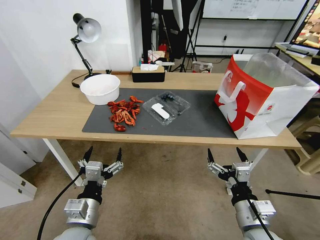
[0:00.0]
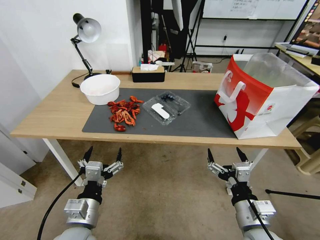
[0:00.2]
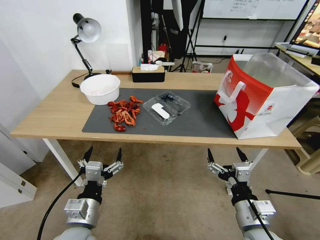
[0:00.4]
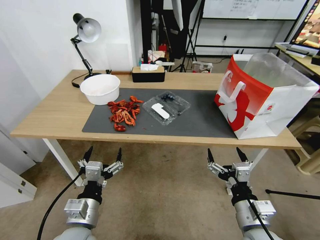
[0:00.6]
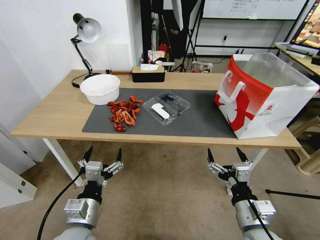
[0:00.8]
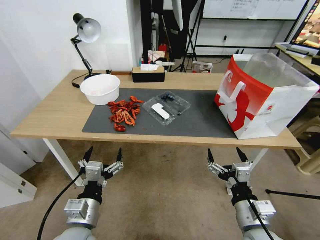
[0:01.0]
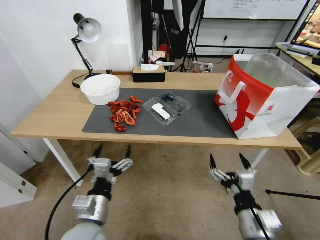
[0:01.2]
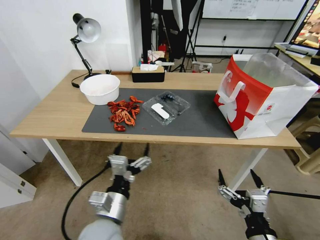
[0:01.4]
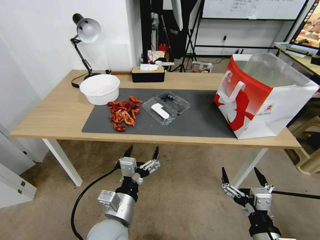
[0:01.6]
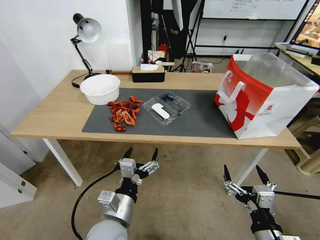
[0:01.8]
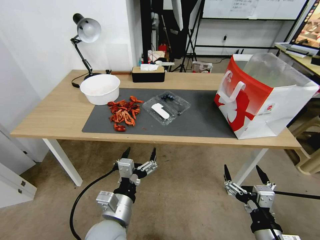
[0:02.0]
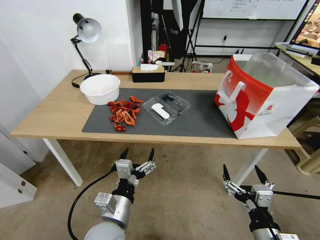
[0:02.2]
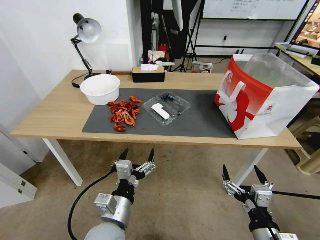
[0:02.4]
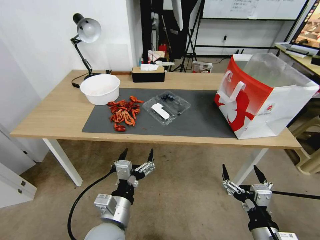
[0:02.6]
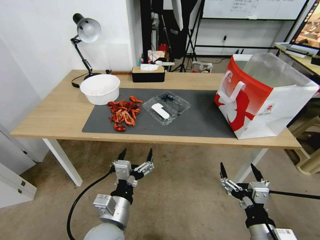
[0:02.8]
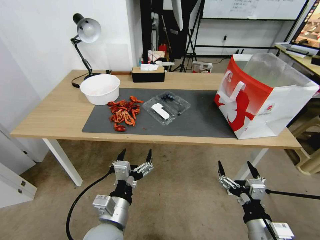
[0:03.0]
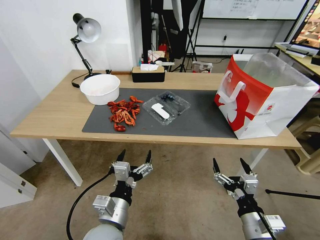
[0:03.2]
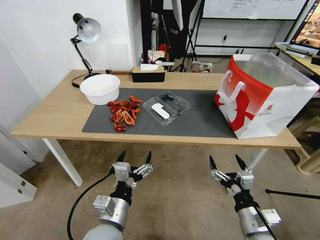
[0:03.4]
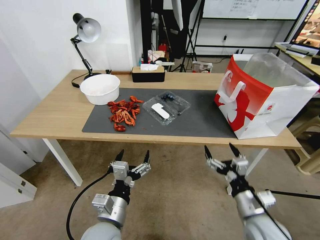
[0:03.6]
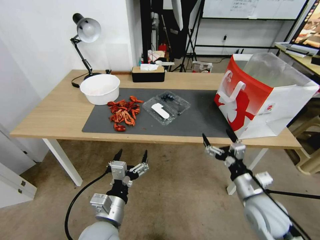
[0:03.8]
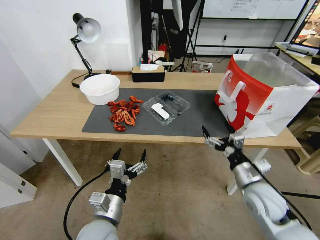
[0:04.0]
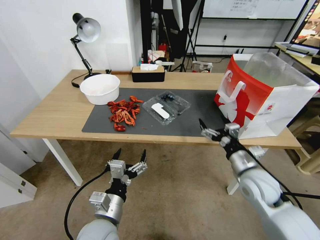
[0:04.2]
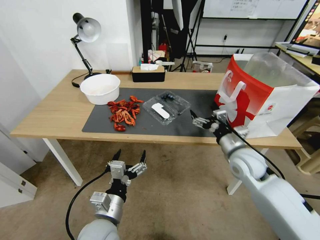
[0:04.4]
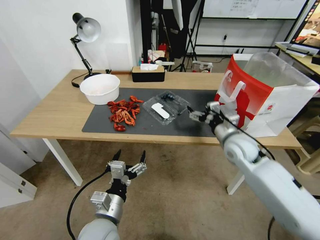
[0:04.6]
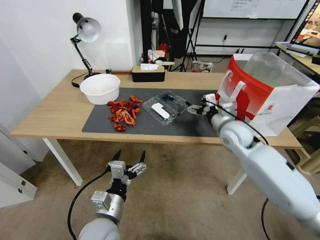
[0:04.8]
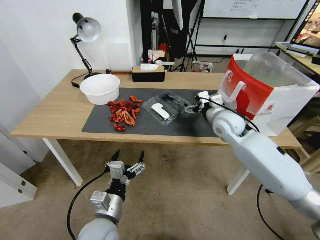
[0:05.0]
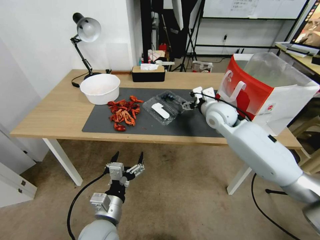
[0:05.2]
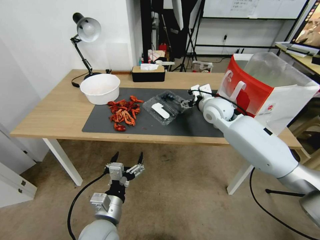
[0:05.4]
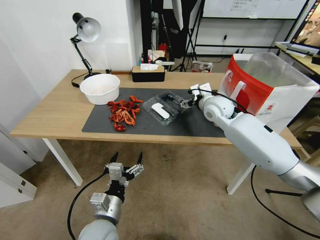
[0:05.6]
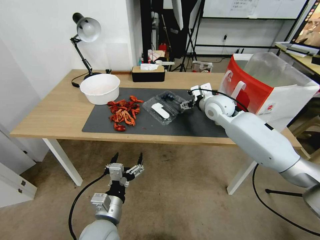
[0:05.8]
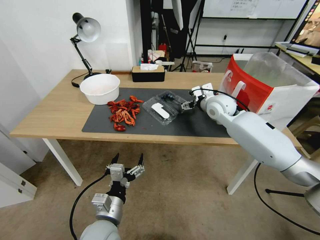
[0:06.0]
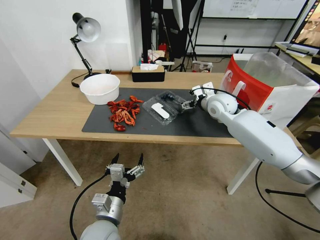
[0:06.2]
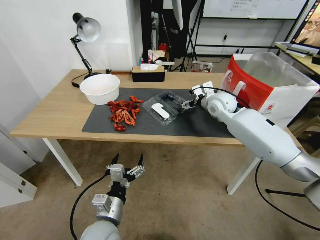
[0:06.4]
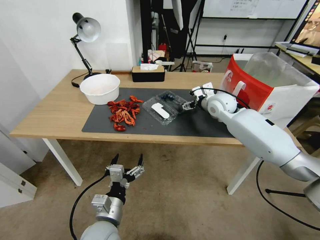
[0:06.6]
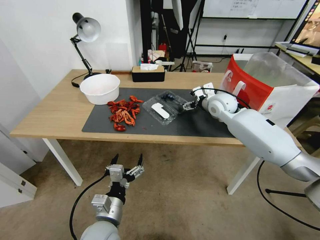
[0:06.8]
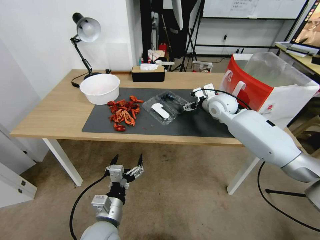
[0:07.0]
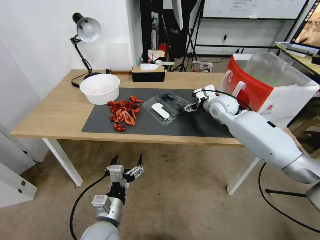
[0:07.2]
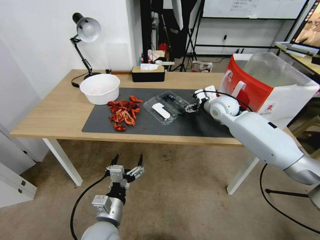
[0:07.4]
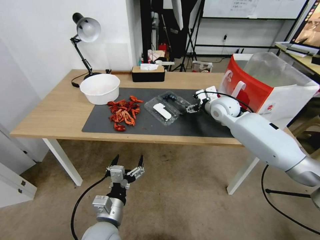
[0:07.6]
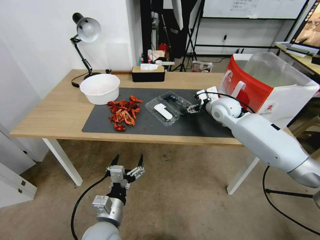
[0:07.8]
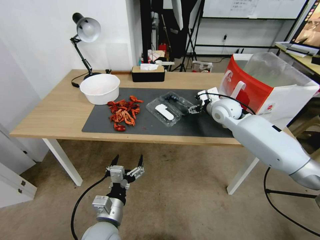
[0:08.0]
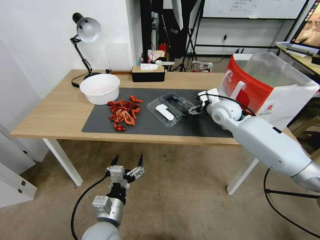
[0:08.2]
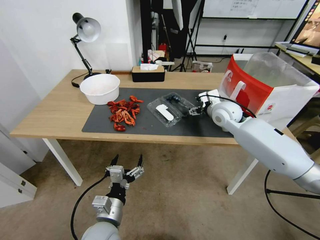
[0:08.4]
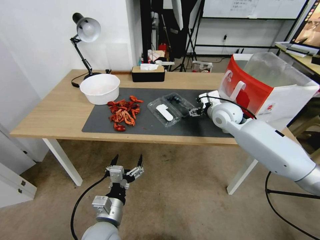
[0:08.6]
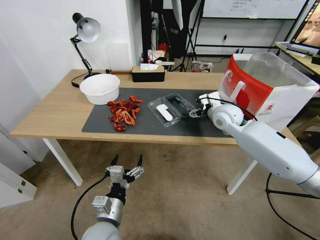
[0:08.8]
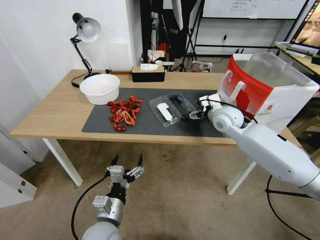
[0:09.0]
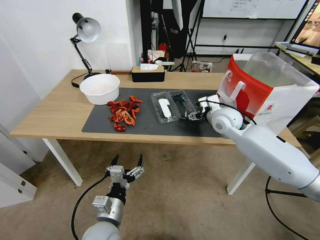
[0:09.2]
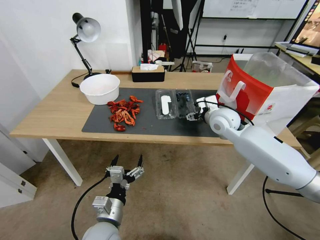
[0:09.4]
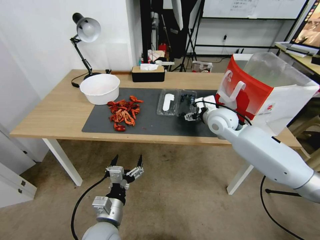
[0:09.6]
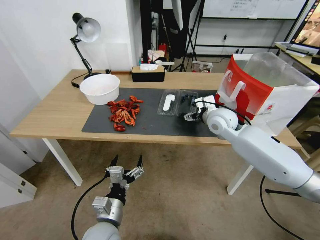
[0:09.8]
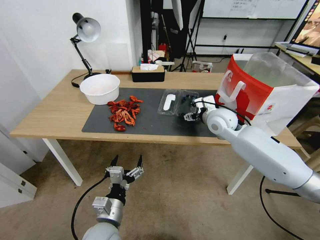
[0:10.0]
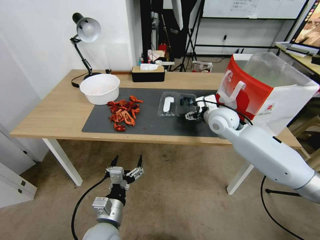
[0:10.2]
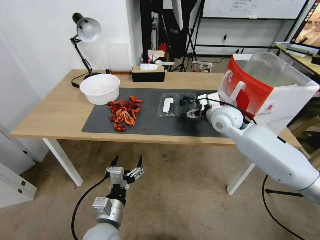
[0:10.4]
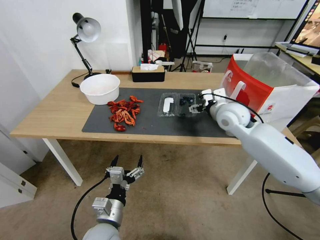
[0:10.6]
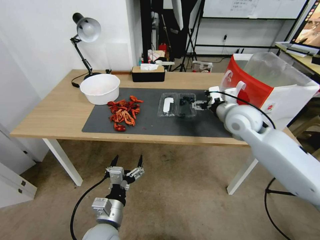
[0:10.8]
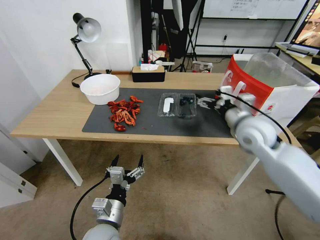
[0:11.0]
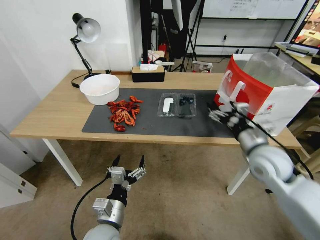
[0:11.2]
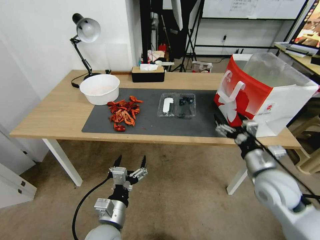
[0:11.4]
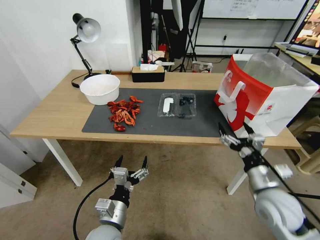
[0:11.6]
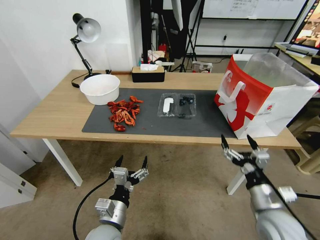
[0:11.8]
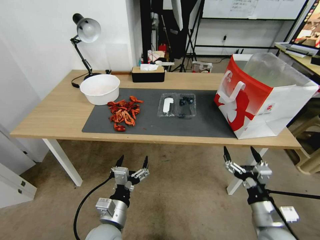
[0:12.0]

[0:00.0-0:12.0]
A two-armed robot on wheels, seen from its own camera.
Task of the whole recording: Close the takeout container lid, then place the container into the takeout bag.
0:01.6 to 0:03.0: The grippers move only a little.
0:03.0 to 0:04.4: The right gripper heads forward, covering about 20 cm.
0:04.4 to 0:06.0: The right gripper goes roughly 20 cm forward and upward.
0:06.0 to 0:07.6: There are only small adjustments of the grippers.
0:07.6 to 0:09.0: The right gripper is displaced backward by approximately 5 cm.
0:09.0 to 0:10.4: The grippers move only a little.
0:10.4 to 0:12.0: The right gripper is displaced backward and downward by some 35 cm.

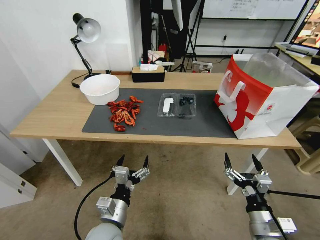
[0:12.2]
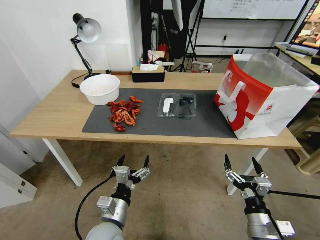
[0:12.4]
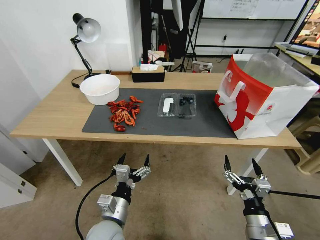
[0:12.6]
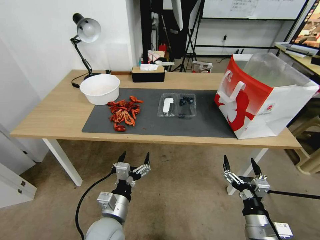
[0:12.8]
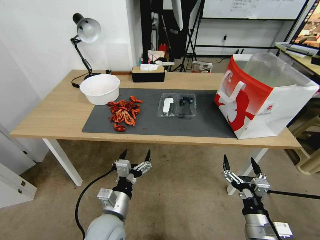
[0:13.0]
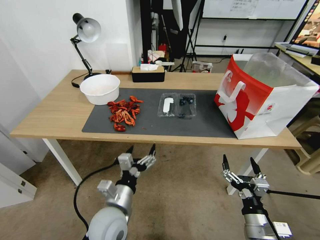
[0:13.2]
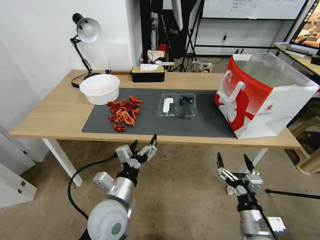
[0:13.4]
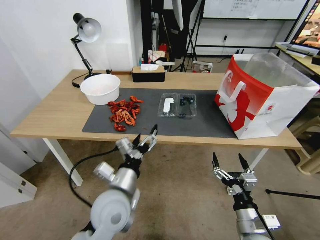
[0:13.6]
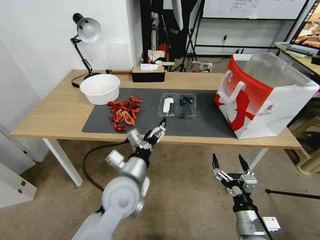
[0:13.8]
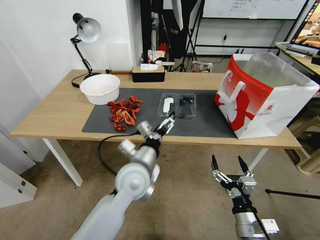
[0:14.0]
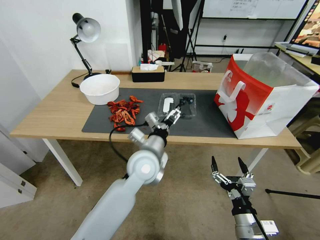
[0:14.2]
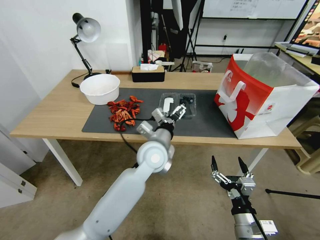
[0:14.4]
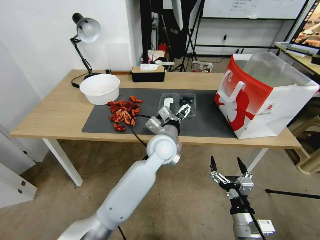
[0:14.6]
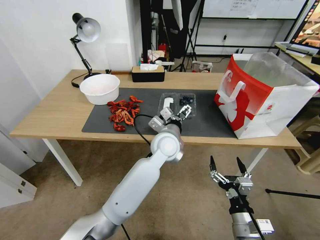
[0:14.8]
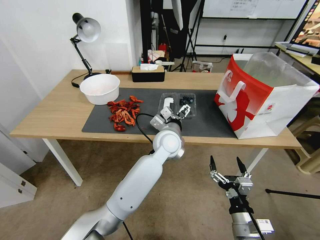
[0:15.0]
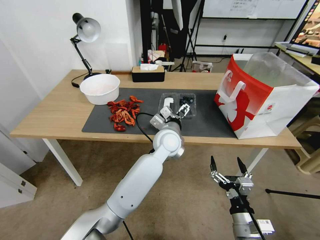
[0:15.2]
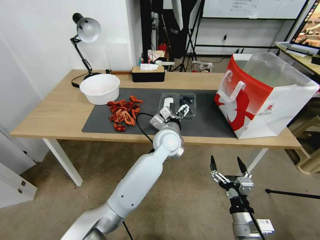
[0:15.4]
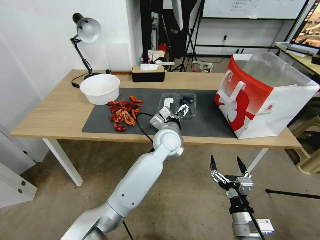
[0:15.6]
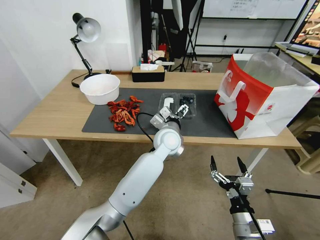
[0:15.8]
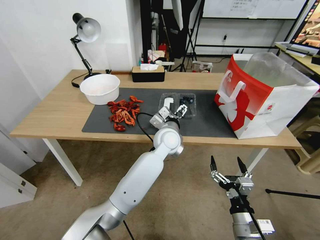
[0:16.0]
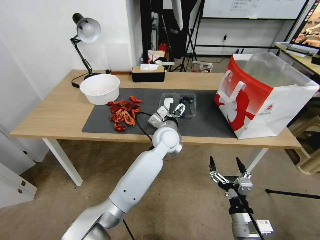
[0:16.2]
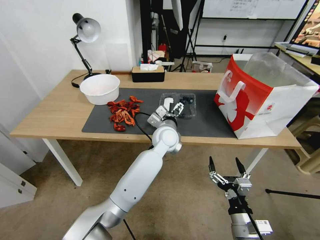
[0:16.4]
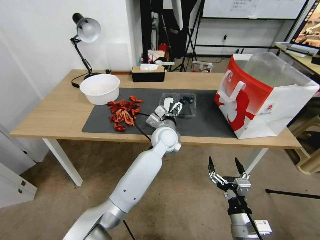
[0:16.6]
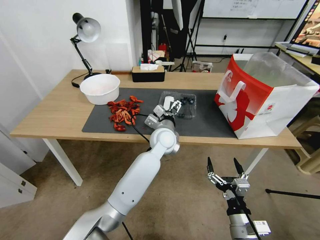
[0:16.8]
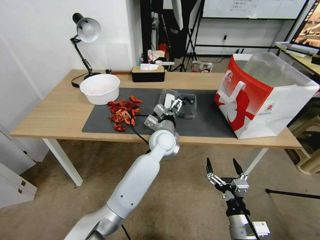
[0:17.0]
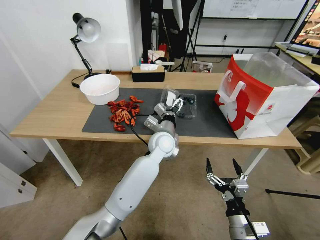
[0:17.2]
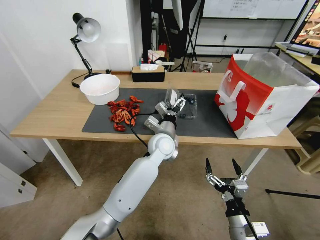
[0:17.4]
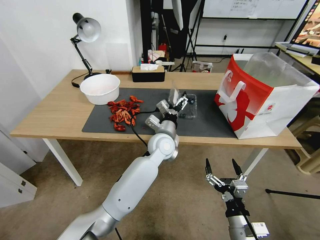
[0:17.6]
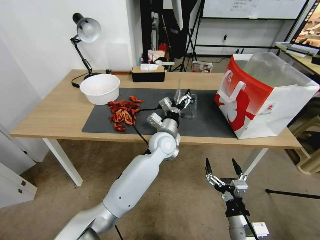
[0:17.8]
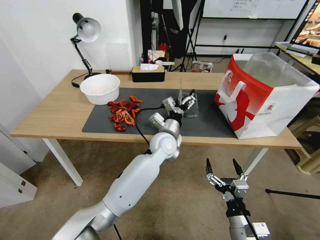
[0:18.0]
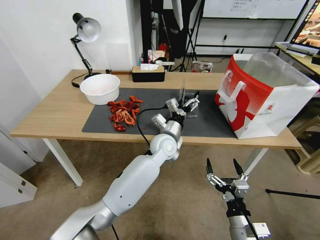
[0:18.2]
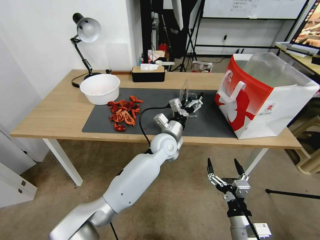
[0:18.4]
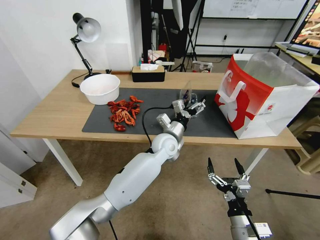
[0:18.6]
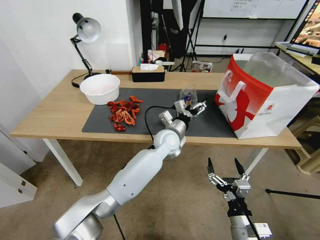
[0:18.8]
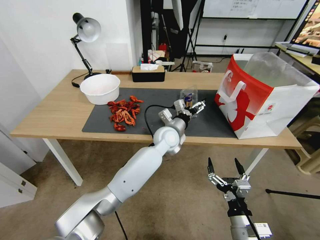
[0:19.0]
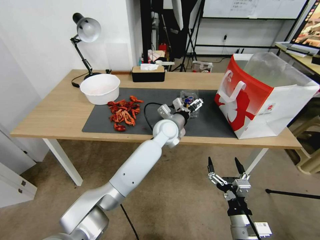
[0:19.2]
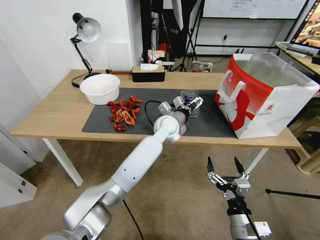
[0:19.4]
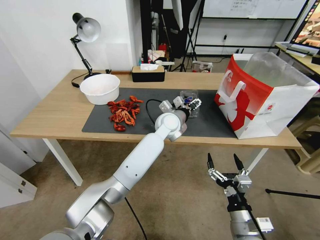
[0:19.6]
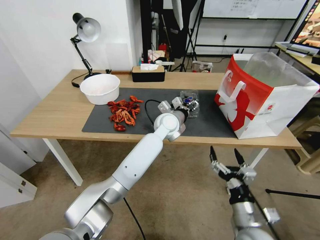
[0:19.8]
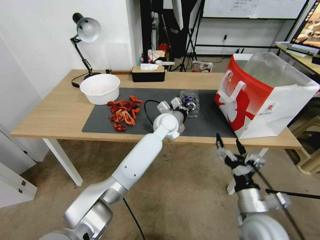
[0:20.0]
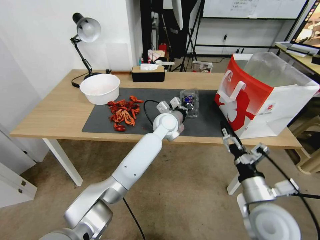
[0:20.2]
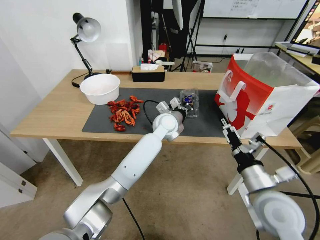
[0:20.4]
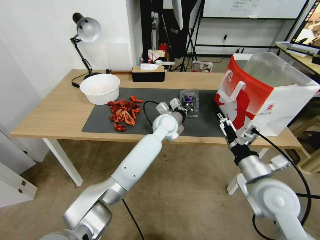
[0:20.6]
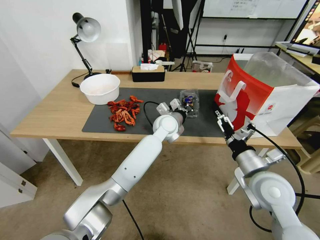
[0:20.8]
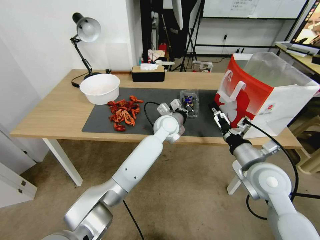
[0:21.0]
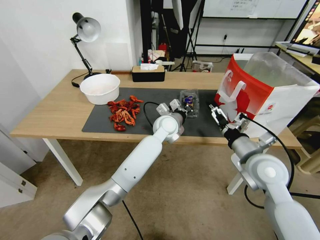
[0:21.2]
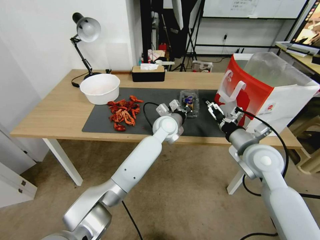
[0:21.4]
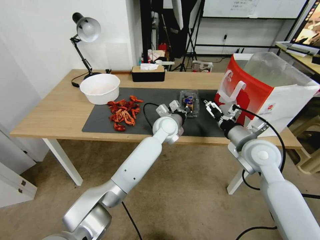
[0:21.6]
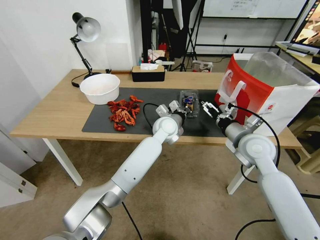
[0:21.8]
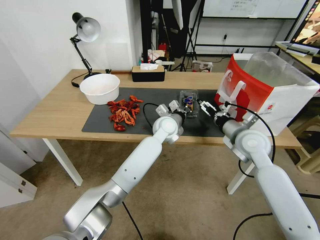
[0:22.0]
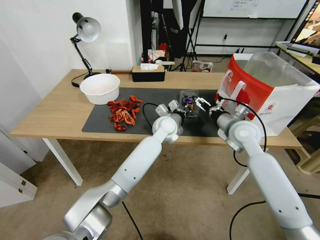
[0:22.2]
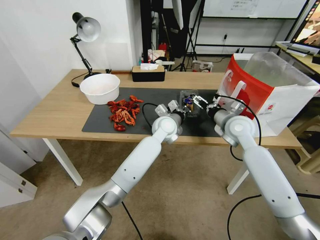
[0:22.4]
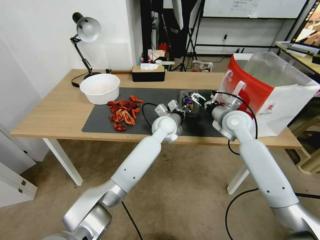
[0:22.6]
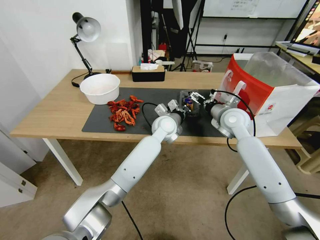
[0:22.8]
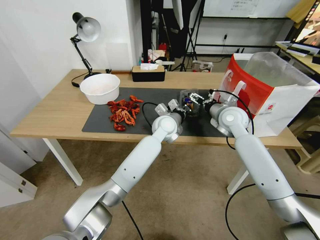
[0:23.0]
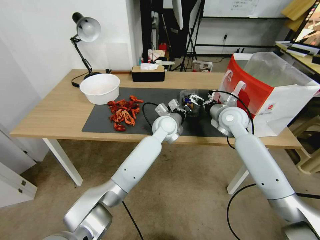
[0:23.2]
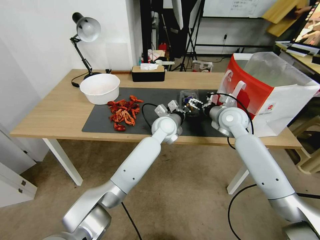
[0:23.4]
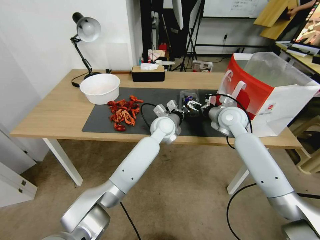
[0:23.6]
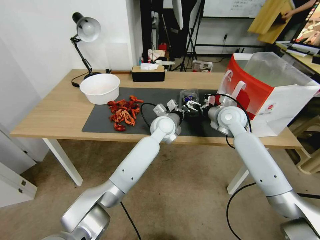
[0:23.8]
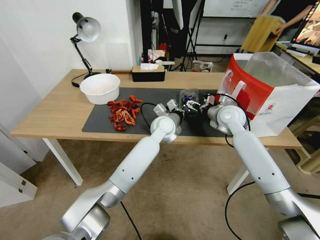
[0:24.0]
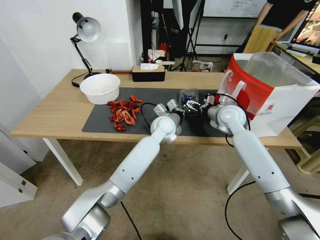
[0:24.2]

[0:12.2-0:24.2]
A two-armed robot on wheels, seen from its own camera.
Task of the whole recording: Close the takeout container lid, then place the container into the takeout bag.
0:12.2 to 0:13.8: The left gripper heads upward and forward, covering roughly 15 cm.
0:13.8 to 0:15.2: The left gripper moves forward and to the right, some 20 cm.
0:15.2 to 0:16.6: There are only small adjustments of the grippers.
0:18.2 to 0:19.8: The left gripper is displaced forward by some 5 cm, and closes its fingers.
0:19.8 to 0:21.2: The left gripper closes. The right gripper is displaced forward and upward by about 20 cm.
0:21.2 to 0:22.6: The right gripper heads forward, covering roughly 15 cm.
0:22.6 to 0:24.2: There are only small adjustments of the grippers.
